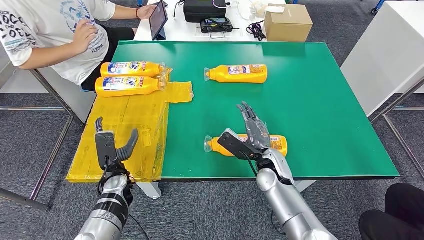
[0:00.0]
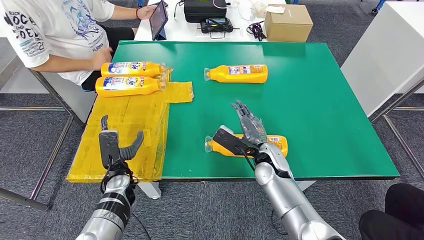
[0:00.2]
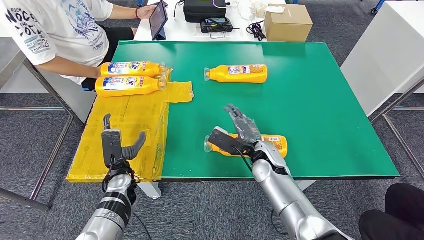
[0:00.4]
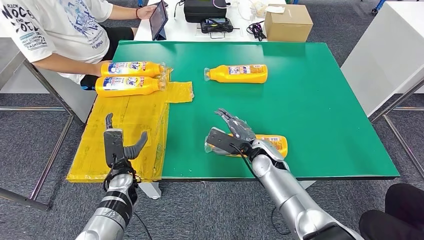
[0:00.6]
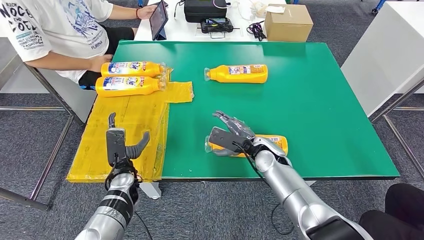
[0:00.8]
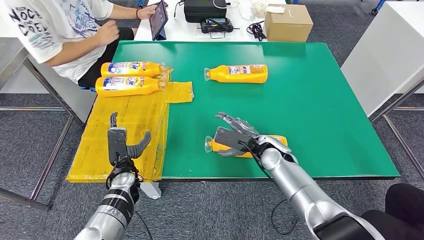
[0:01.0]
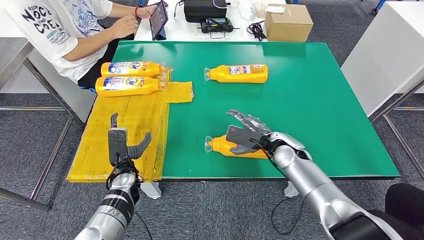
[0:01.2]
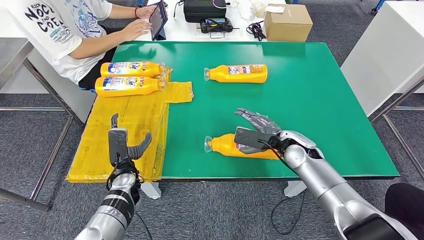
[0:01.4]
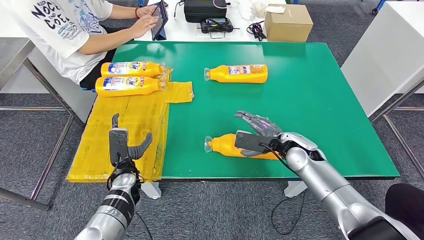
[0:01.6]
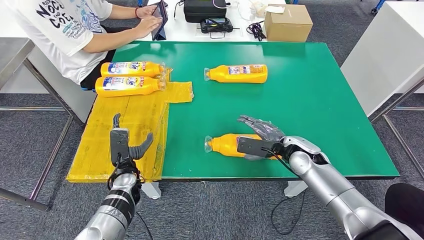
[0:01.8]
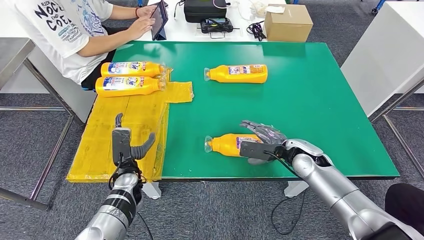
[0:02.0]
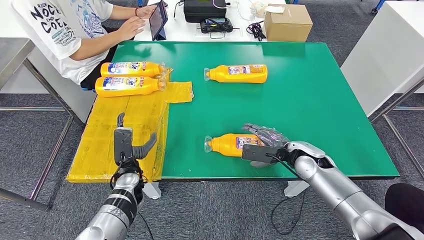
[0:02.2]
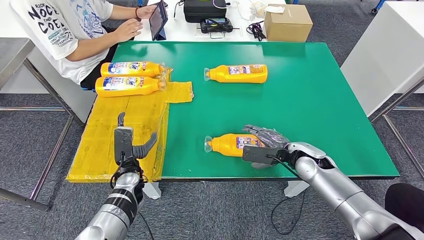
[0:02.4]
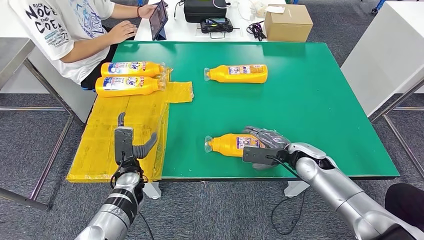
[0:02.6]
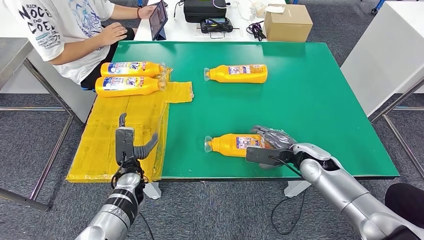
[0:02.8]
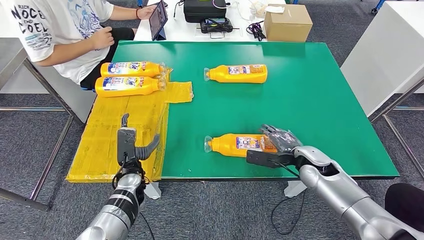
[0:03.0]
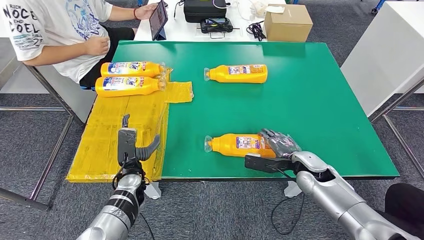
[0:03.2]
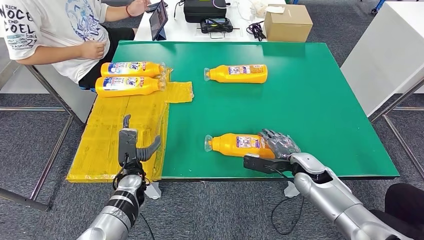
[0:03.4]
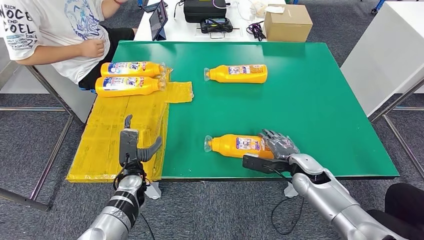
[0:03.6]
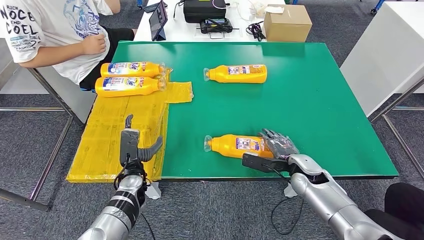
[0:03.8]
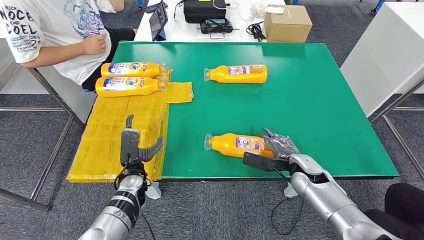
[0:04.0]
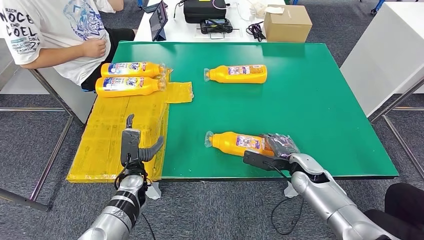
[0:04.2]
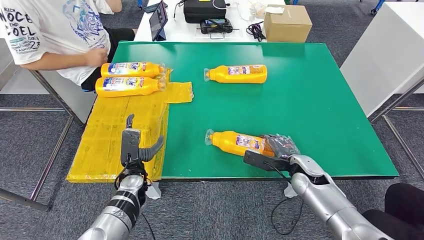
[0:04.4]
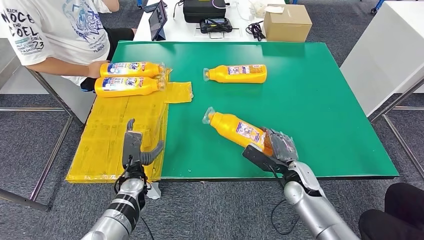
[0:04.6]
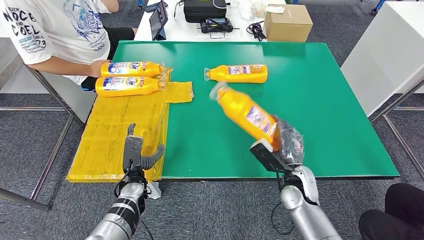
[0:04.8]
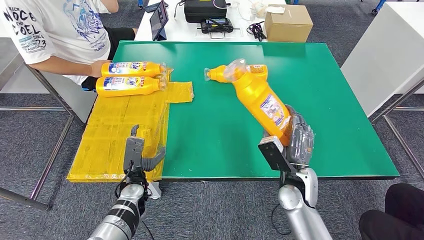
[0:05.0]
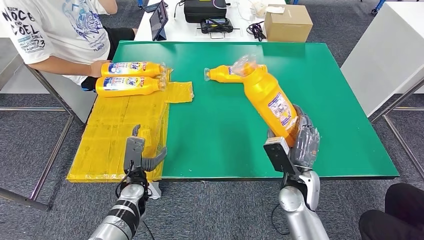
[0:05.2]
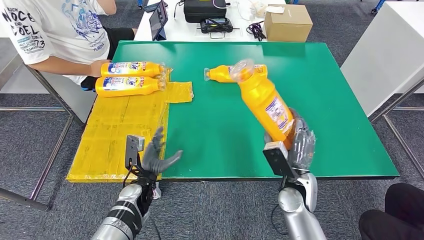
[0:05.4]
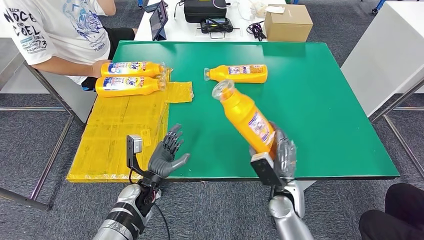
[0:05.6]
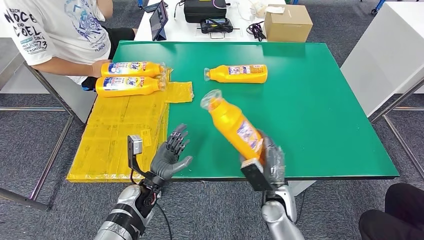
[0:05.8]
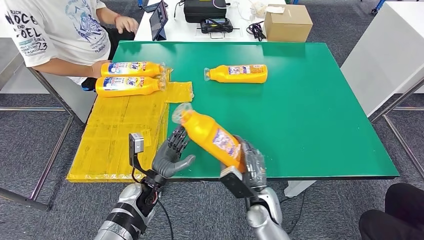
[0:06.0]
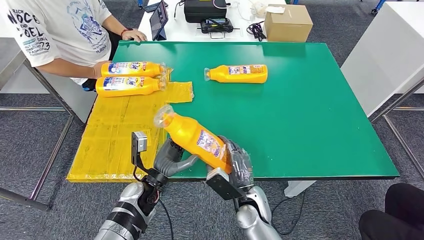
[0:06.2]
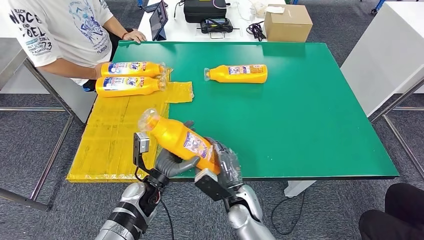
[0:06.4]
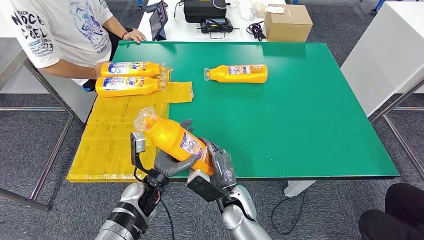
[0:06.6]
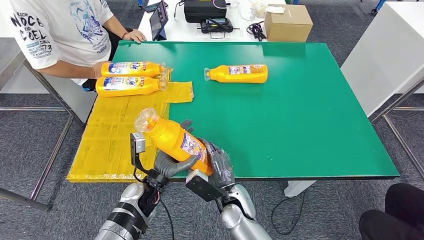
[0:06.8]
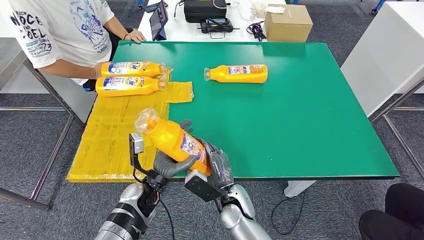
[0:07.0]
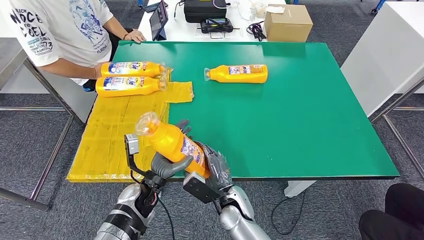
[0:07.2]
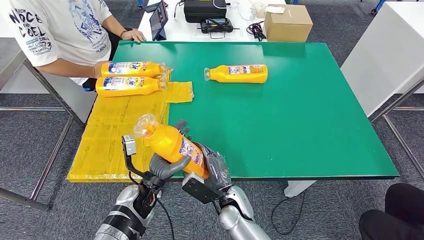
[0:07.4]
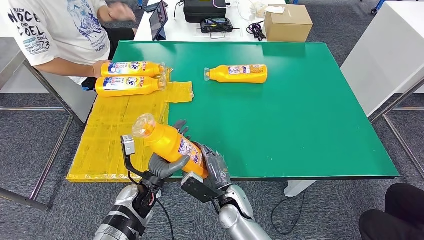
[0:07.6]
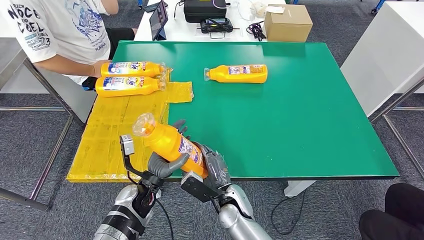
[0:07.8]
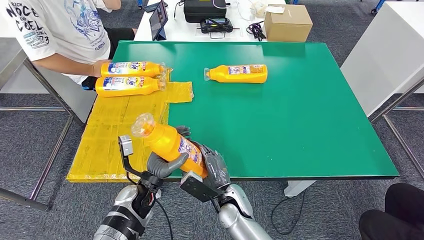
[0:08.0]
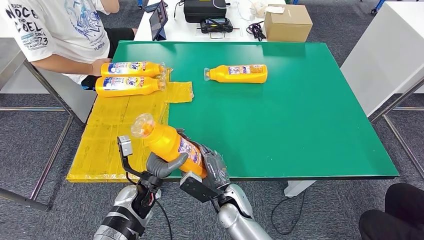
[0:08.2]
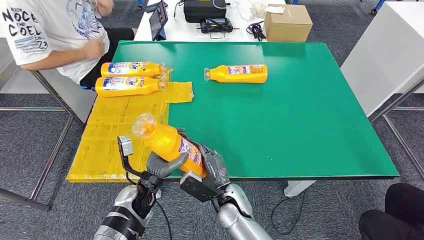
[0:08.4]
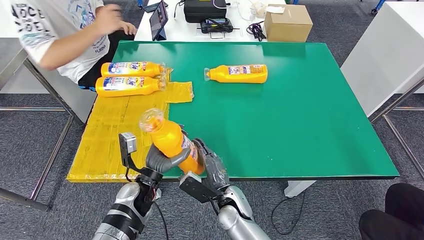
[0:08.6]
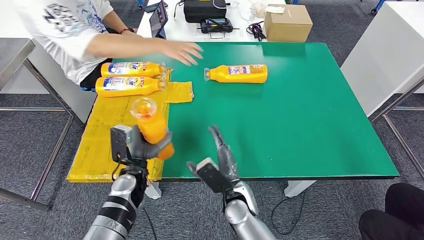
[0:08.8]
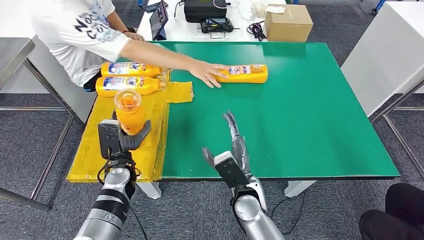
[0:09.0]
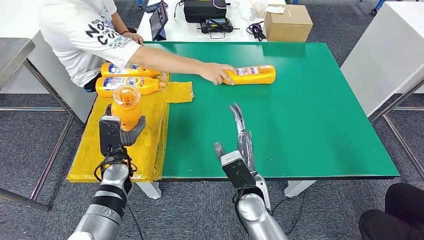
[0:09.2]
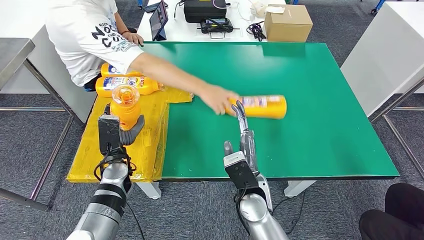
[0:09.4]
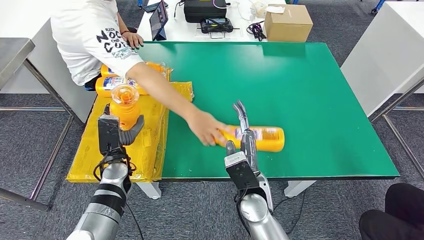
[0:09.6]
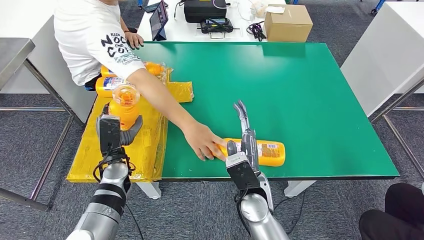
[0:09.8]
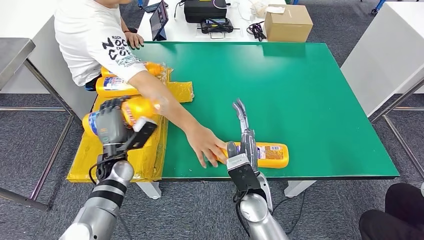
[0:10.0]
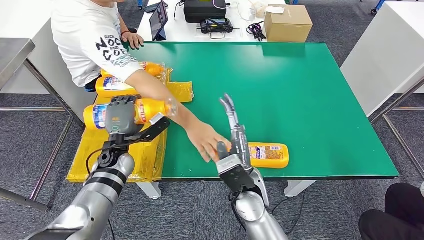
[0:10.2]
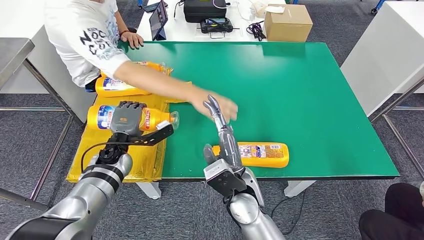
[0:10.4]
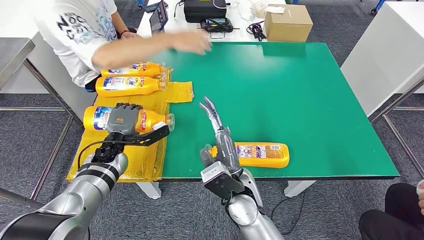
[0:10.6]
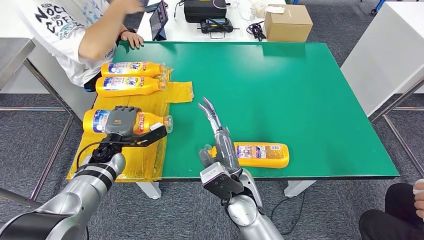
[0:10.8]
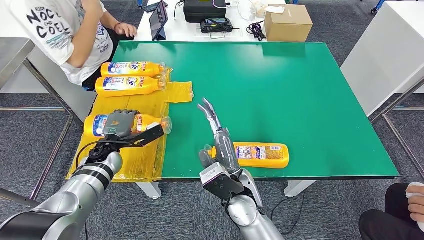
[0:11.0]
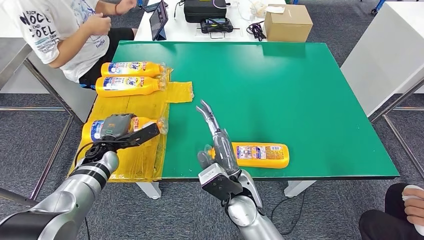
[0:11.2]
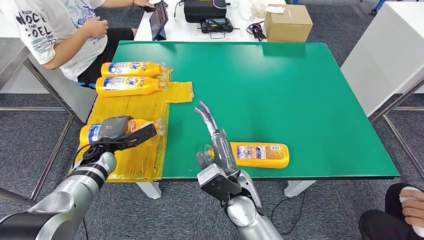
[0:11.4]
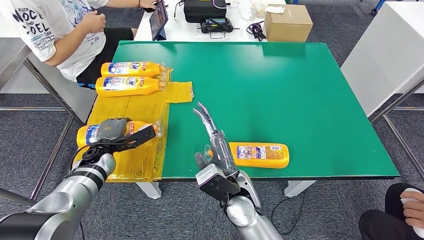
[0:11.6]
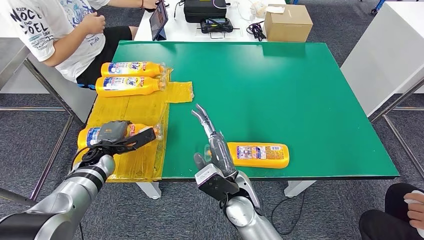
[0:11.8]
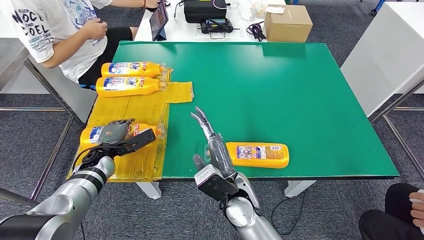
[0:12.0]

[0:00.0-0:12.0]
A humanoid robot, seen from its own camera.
Step, 0:00.4 to 0:07.2: Pick up the bottle from the table.
0:00.0 to 0:01.6: The right hand goes approximately 10 cm to the right.
0:01.6 to 0:03.0: The right hand changes place by approximately 5 cm.
0:03.0 to 0:04.4: The hands make only small movements.
0:04.4 to 0:06.0: The left hand ends up about 5 cm from where it was. The right hand goes roughly 15 cm to the left and backward.
0:06.0 to 0:07.6: The right hand shifts roughly 10 cm to the left.

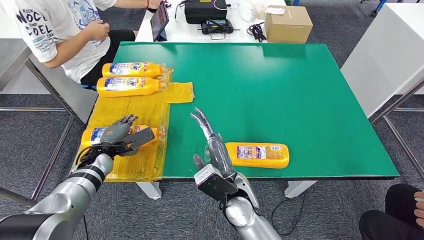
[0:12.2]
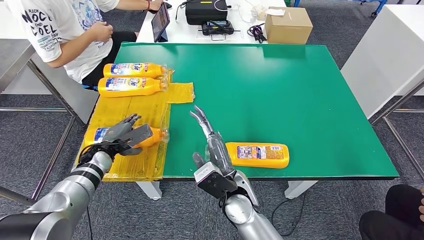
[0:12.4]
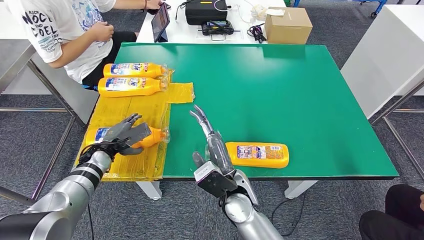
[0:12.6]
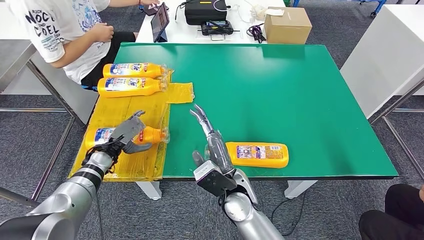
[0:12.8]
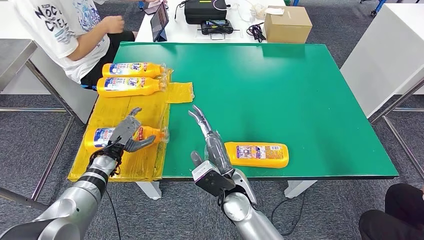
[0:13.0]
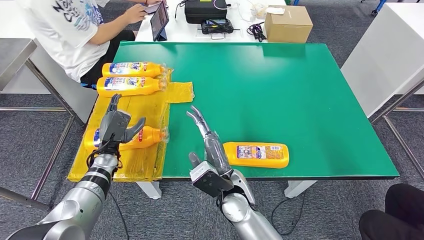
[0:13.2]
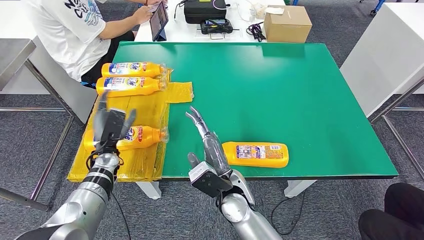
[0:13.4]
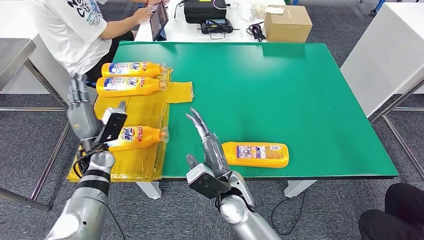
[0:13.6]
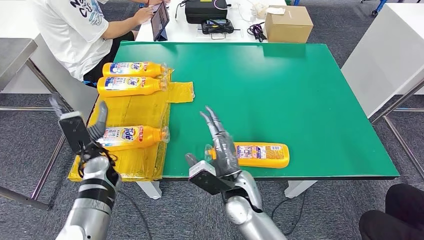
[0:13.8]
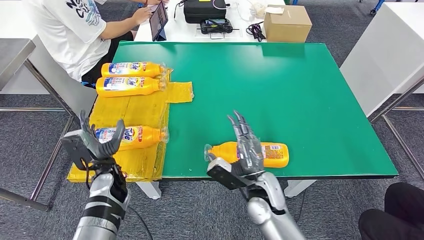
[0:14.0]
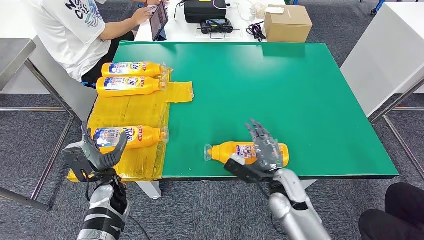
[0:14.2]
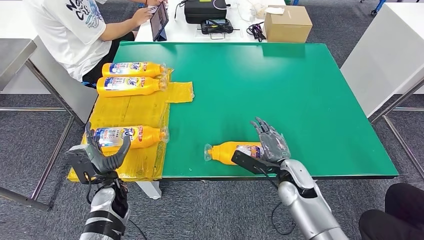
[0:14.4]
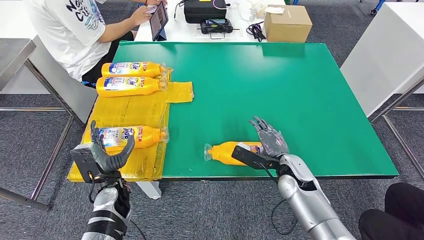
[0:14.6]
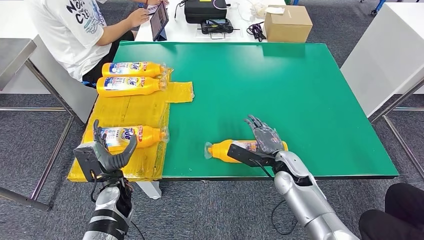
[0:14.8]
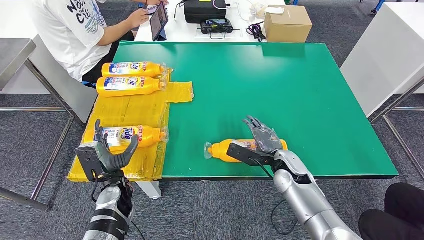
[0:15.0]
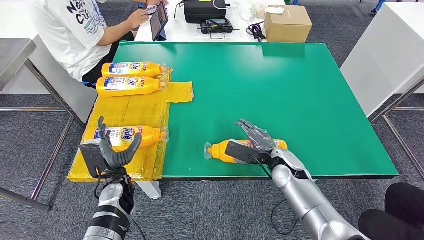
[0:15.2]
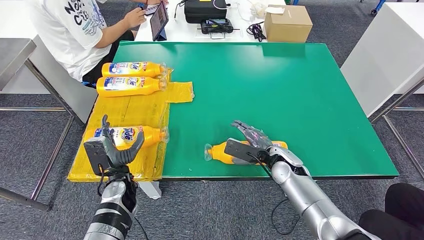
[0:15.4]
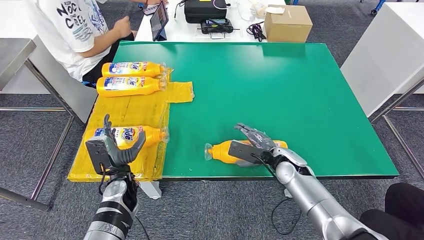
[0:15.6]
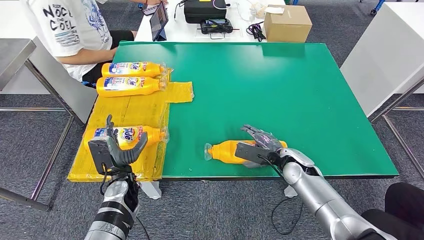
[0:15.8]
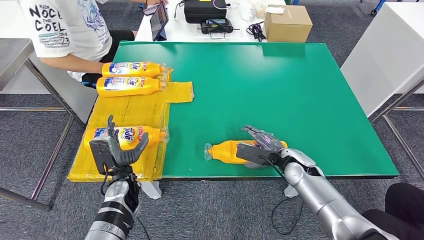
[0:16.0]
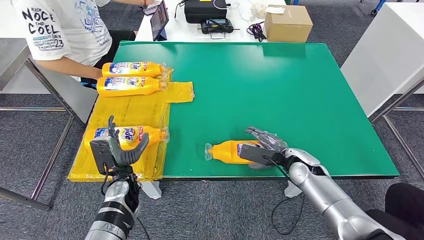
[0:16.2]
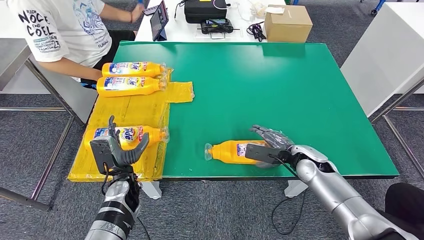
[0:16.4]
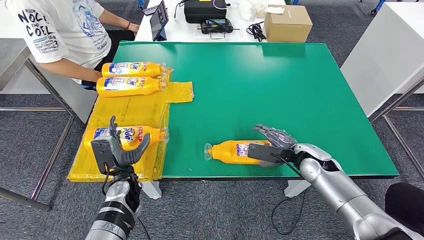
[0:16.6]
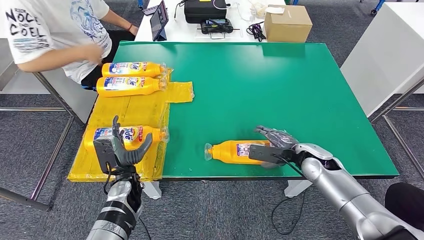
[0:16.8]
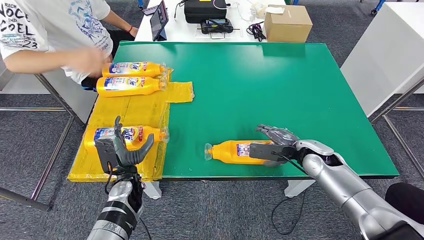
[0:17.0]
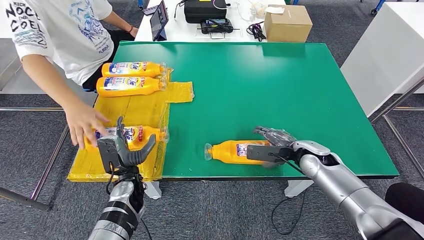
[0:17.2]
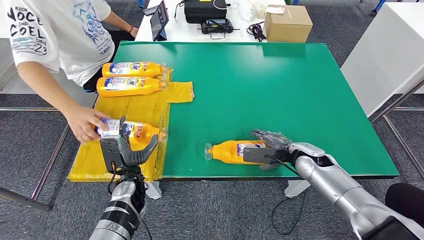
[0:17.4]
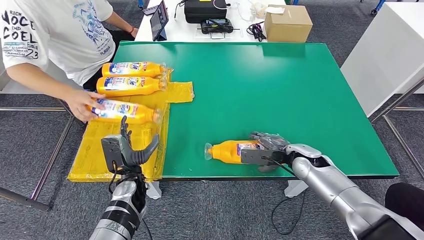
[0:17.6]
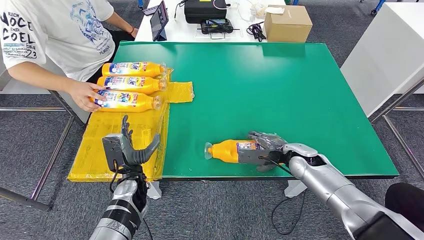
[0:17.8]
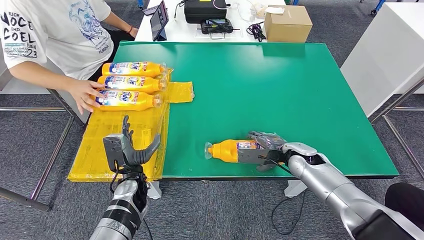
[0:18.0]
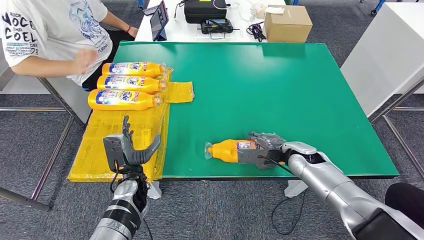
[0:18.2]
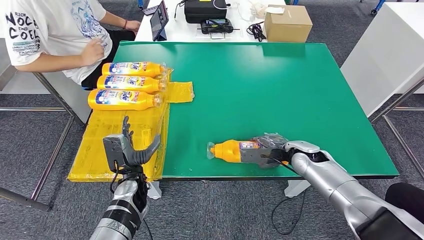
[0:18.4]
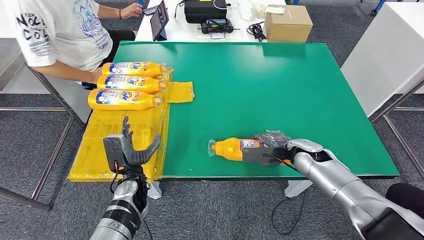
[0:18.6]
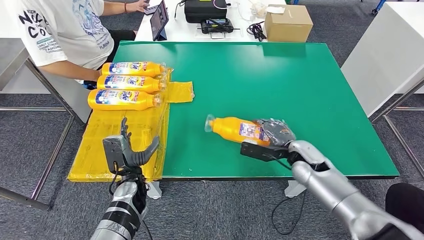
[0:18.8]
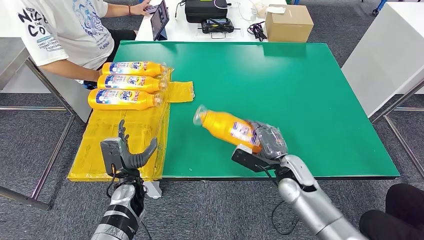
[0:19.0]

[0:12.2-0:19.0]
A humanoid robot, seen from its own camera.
Step, 0:12.2 to 0:14.2: Flip the bottle to face forward.
0:12.2 to 0:13.6: The left hand travels upward by approximately 5 cm.
0:13.6 to 0:15.0: The right hand travels to the right and forward by approximately 20 cm. The left hand goes about 10 cm backward, to the right and downward.
0:15.0 to 0:16.2: The hands stay close to where they were, moving slightly.
0:16.2 to 0:17.6: The hands move only a little.
